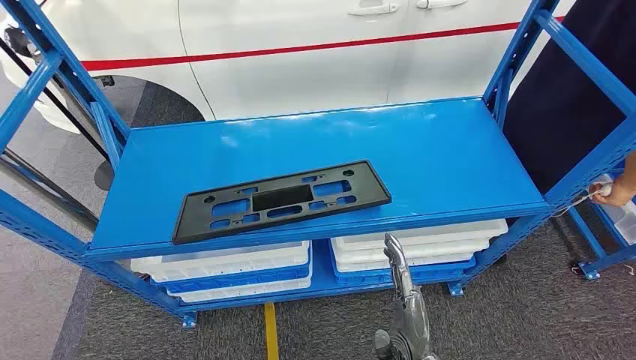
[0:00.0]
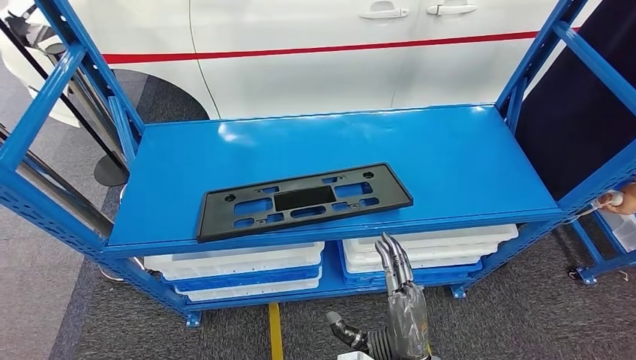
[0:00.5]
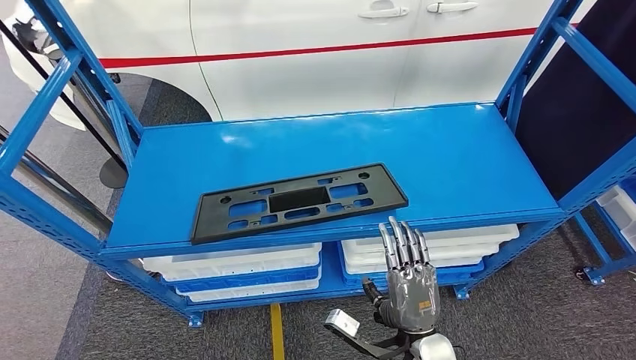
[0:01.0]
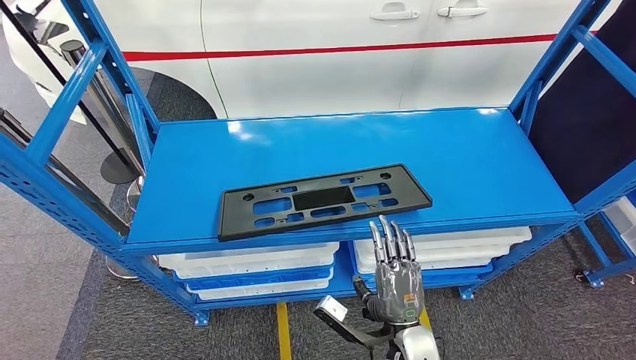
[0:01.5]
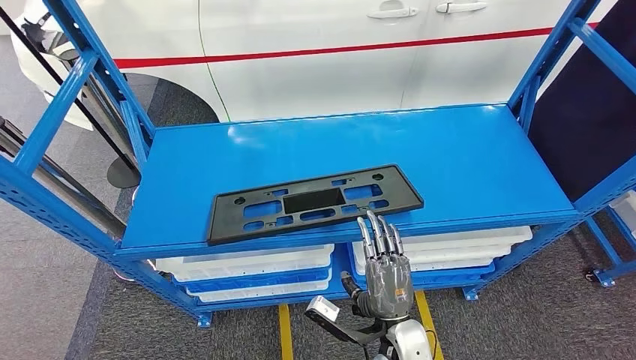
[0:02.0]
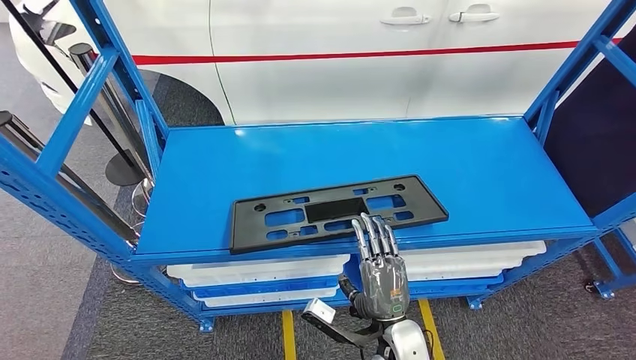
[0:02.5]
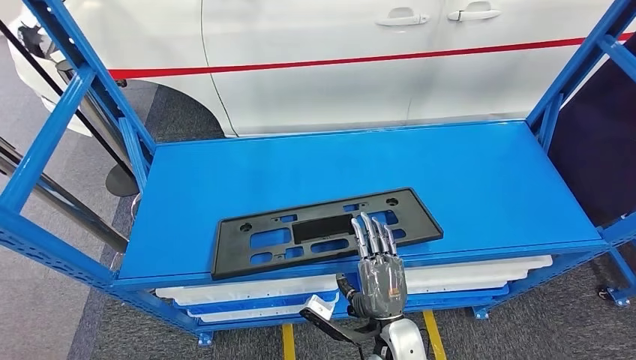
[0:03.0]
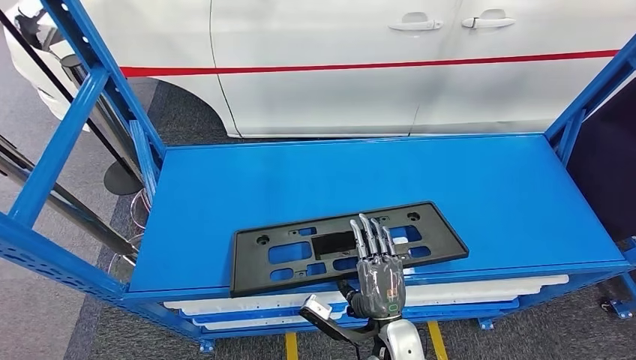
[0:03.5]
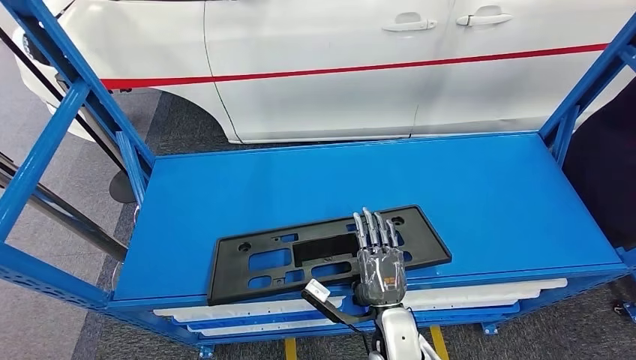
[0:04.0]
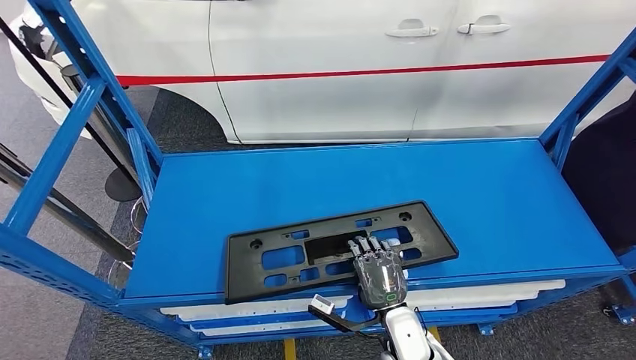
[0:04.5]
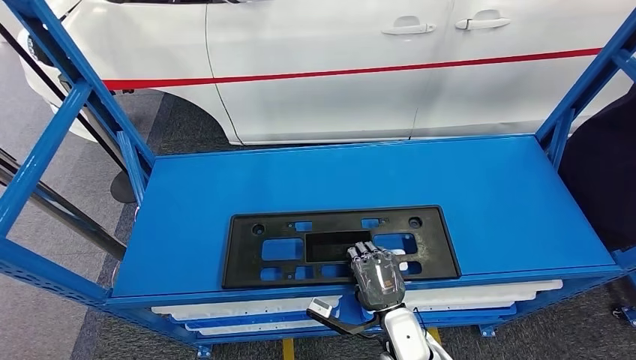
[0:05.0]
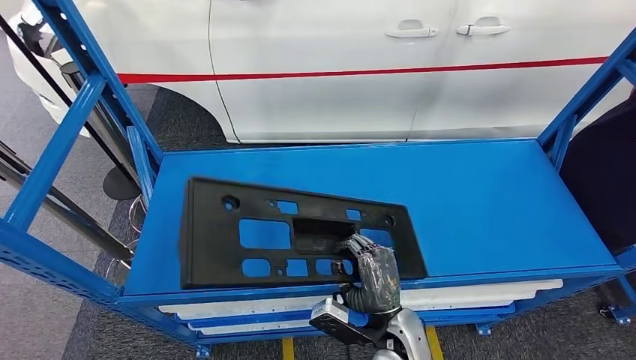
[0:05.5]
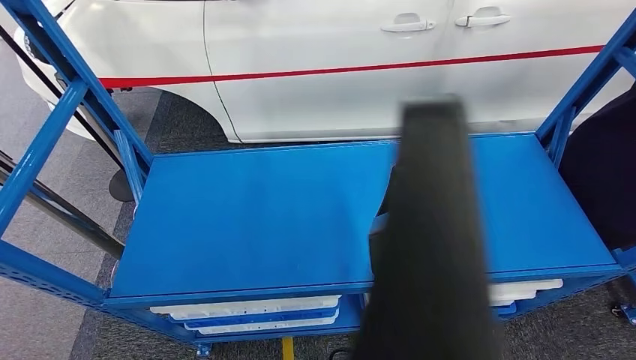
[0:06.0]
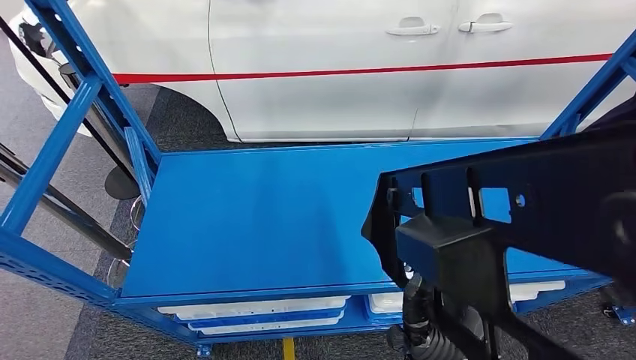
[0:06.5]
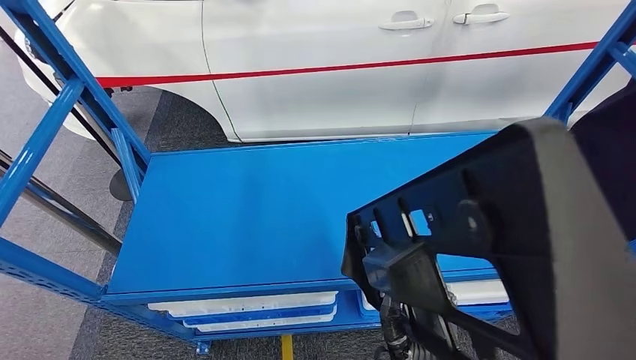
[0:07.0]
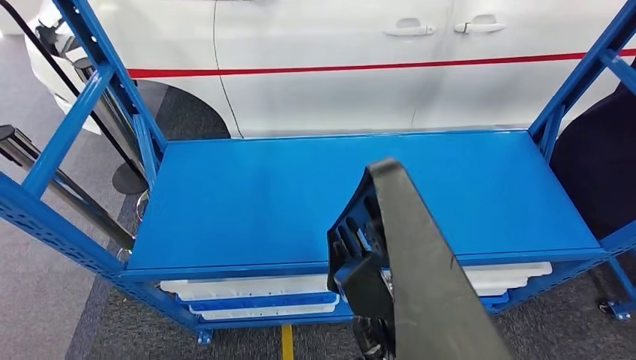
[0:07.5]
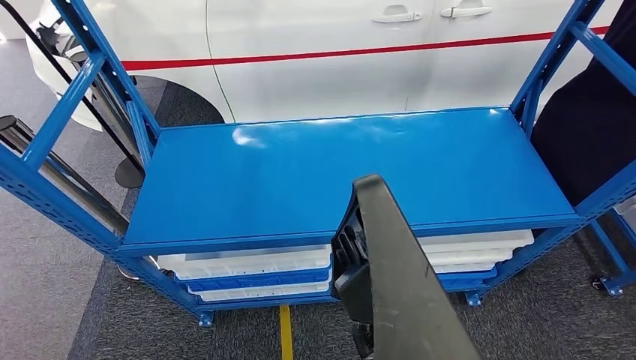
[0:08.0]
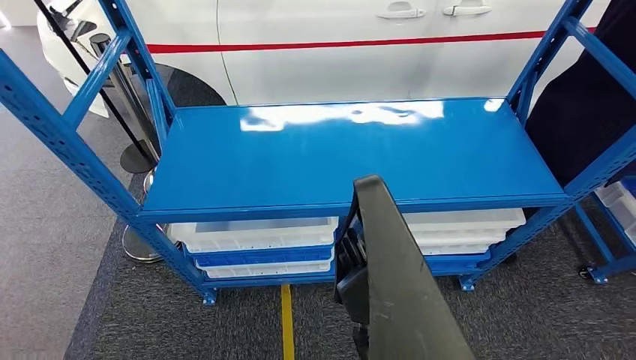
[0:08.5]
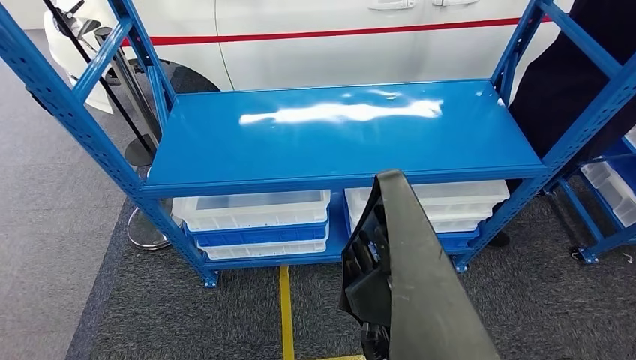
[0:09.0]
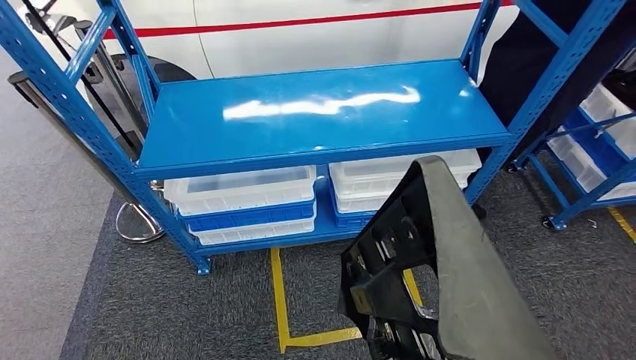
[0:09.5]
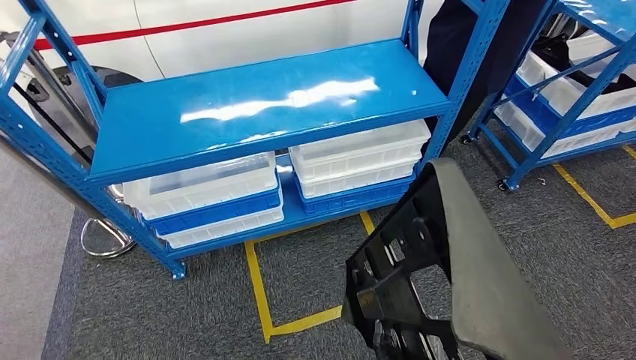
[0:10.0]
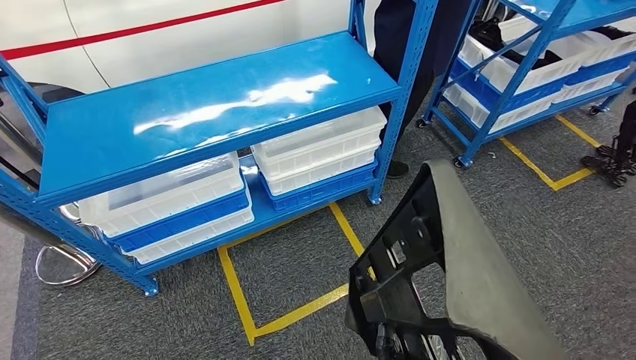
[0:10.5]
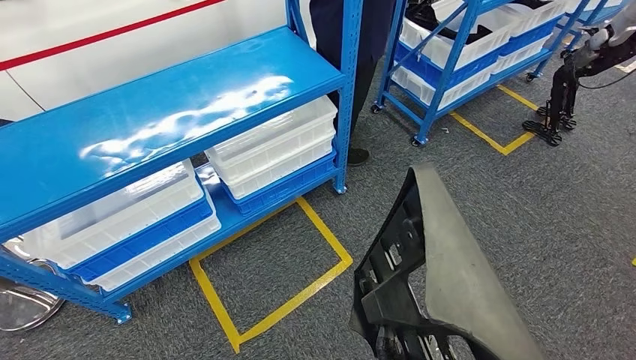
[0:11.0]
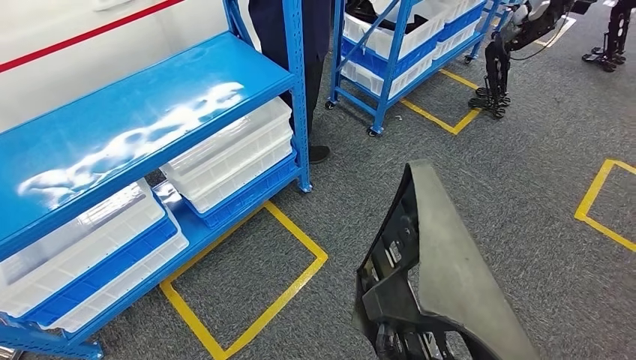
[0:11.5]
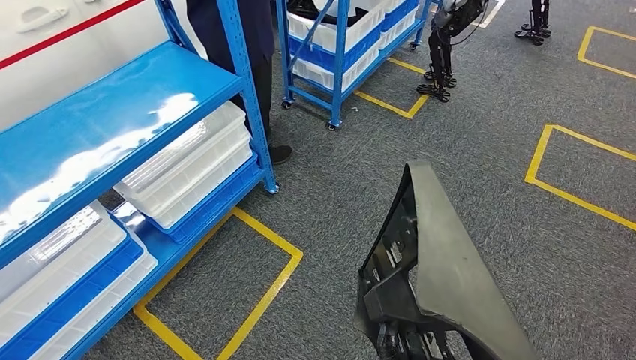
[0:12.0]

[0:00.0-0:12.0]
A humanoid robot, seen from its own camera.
Step, 0:00.0 to 0:09.0: Pick up the large material from the shelf.

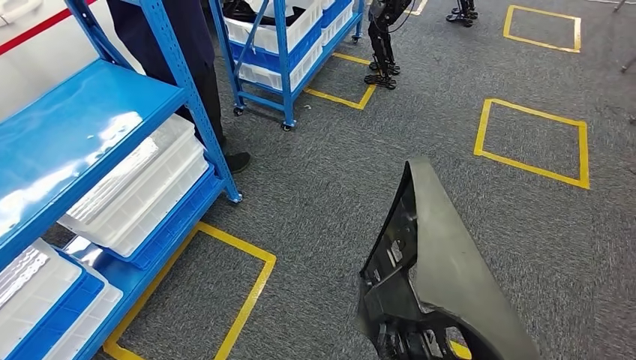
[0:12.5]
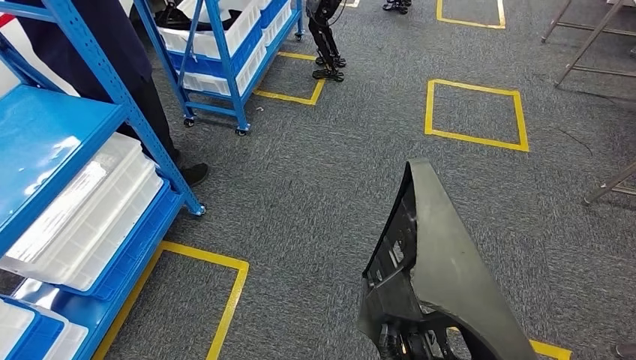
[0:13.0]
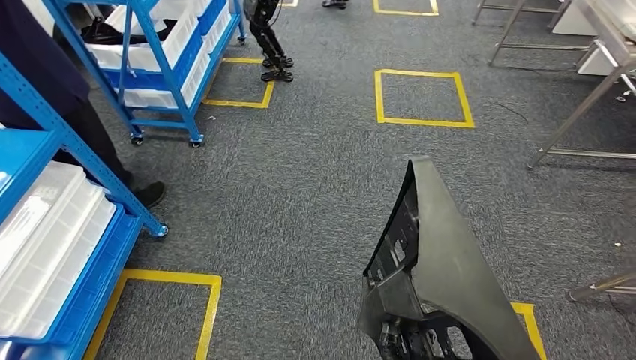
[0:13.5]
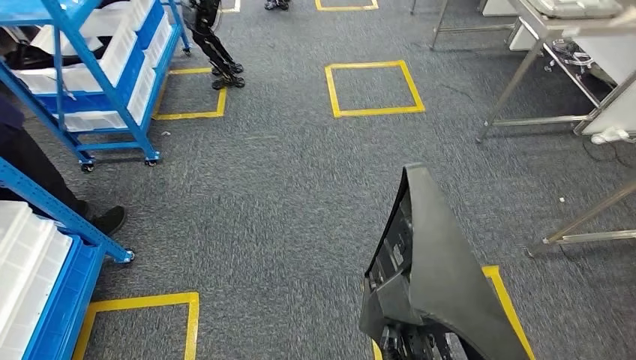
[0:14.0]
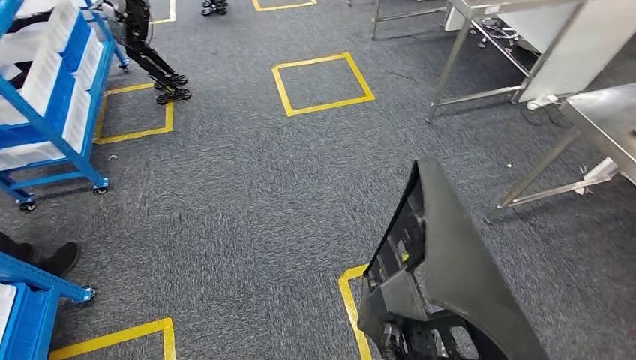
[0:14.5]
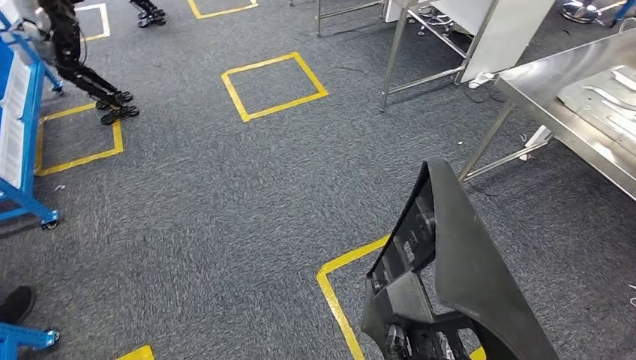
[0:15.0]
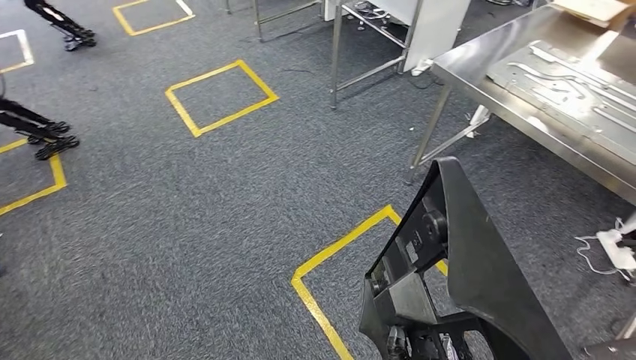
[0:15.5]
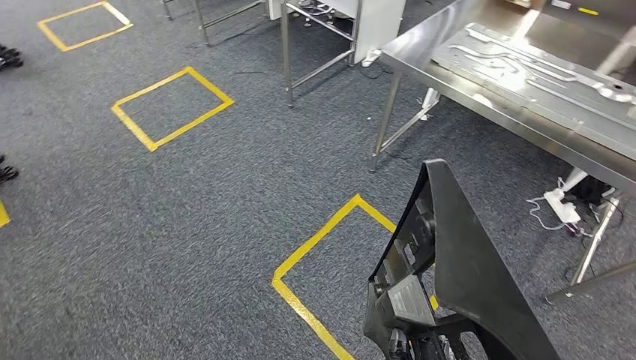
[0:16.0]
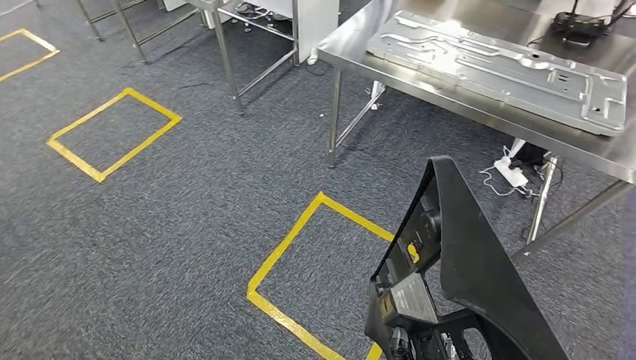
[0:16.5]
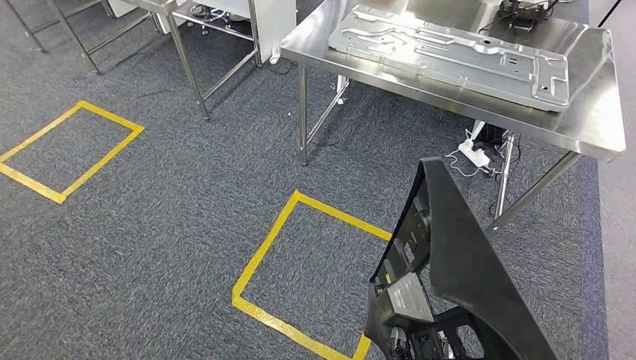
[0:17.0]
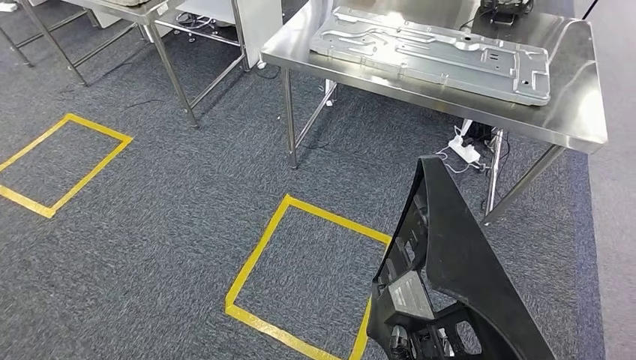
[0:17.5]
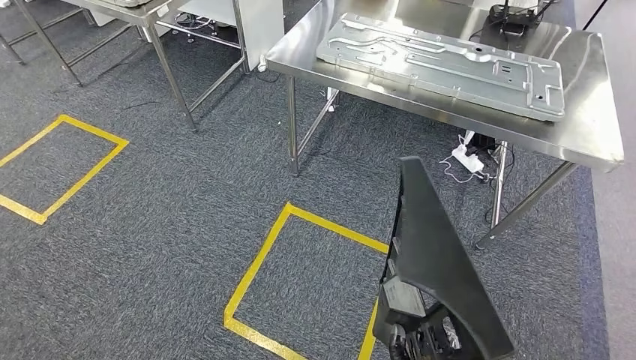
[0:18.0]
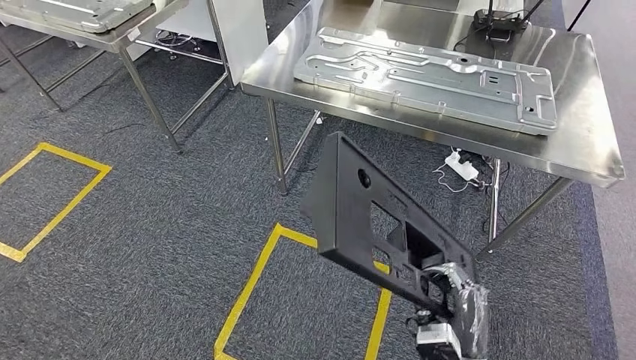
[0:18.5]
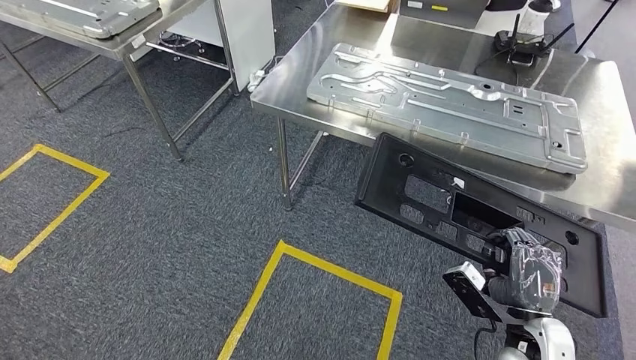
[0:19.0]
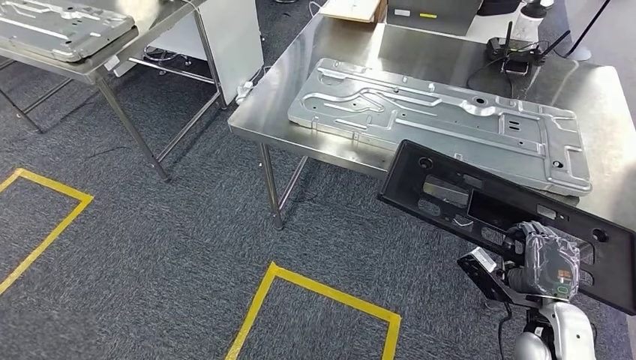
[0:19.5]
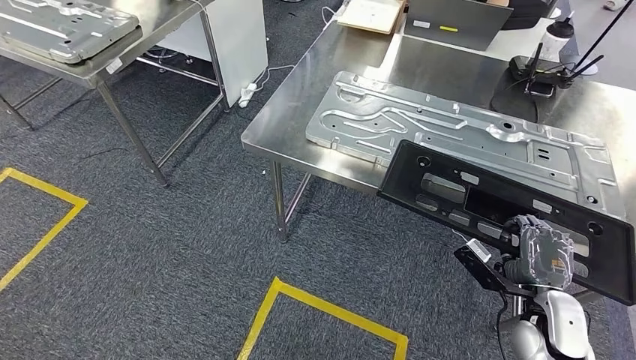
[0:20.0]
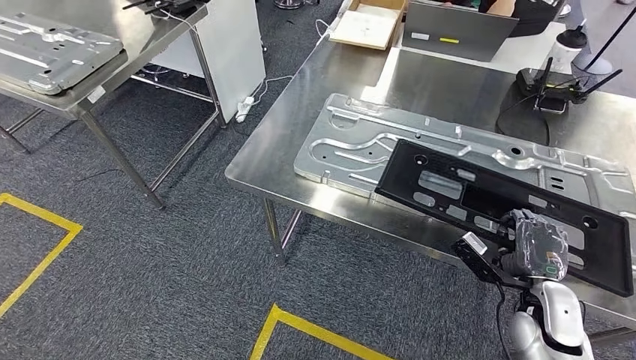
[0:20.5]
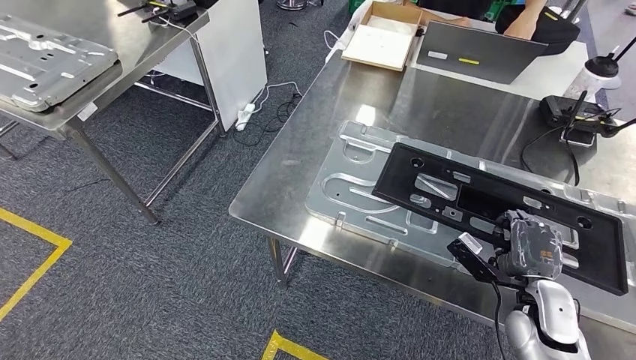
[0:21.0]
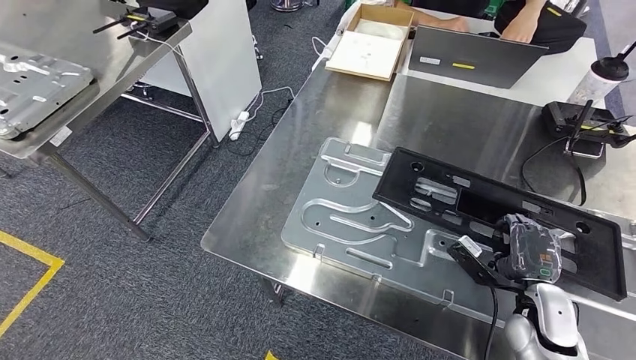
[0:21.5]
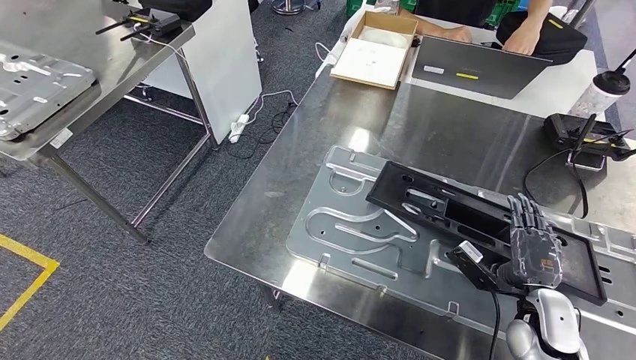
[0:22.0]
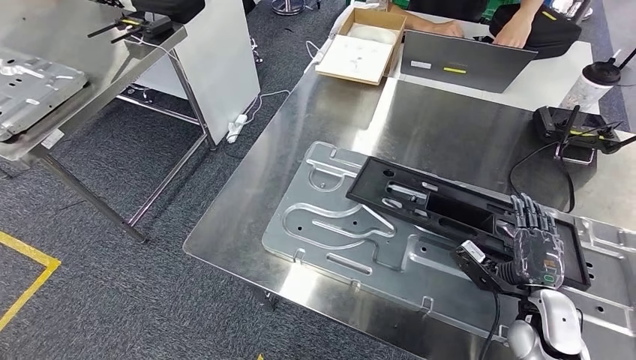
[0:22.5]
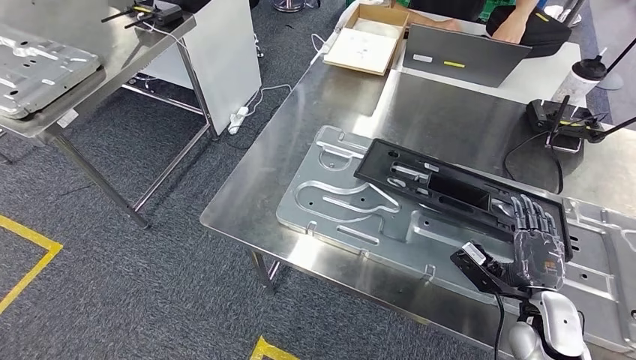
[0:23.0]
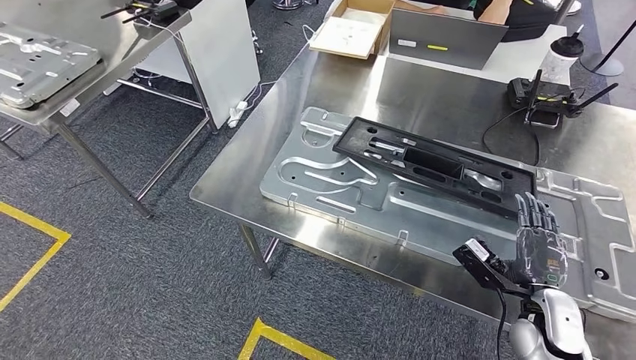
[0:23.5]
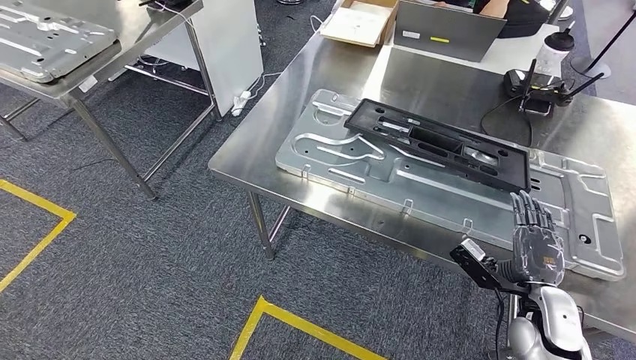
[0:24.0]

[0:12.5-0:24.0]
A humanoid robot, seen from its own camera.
Step, 0:12.5 to 0:19.0: Move the large material to the workbench.
